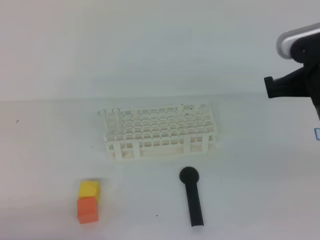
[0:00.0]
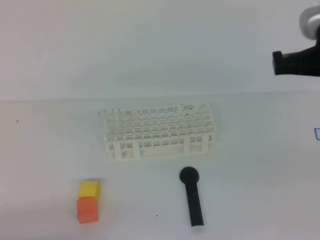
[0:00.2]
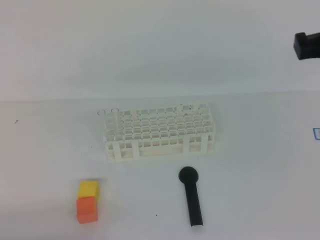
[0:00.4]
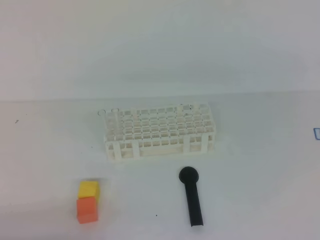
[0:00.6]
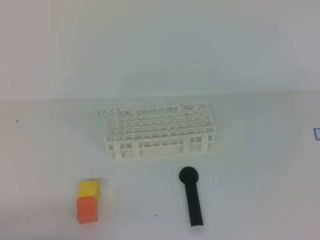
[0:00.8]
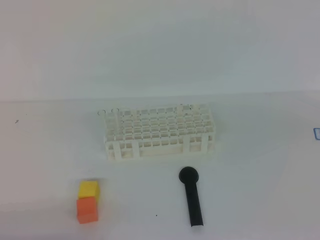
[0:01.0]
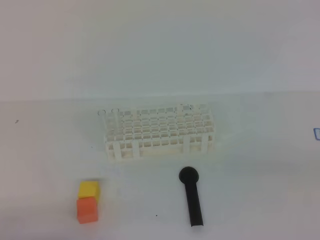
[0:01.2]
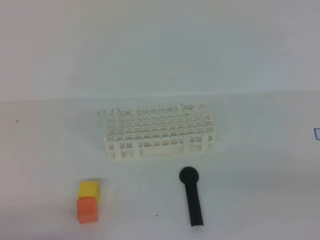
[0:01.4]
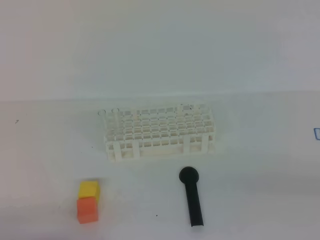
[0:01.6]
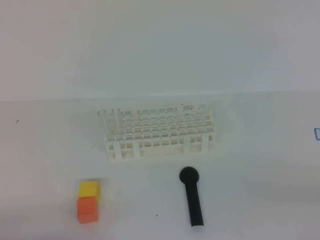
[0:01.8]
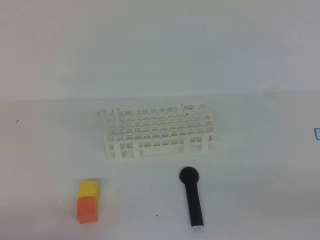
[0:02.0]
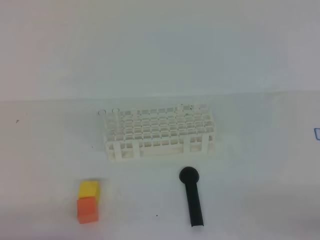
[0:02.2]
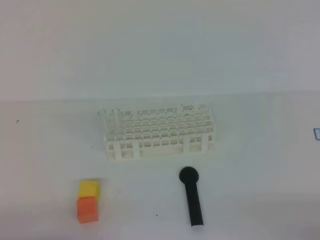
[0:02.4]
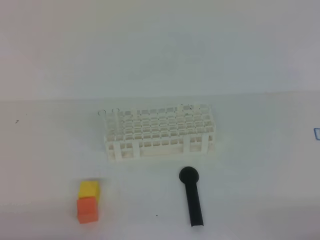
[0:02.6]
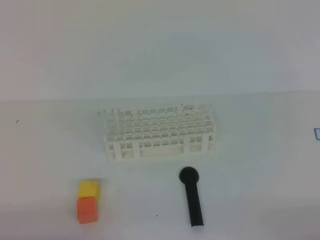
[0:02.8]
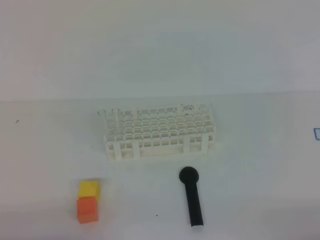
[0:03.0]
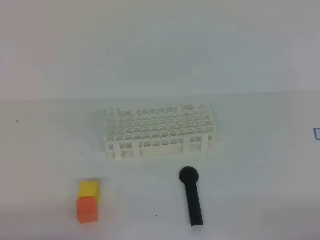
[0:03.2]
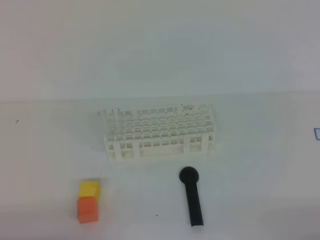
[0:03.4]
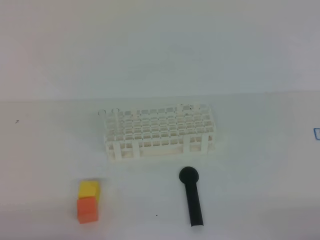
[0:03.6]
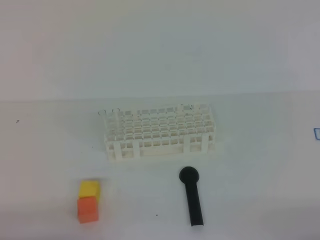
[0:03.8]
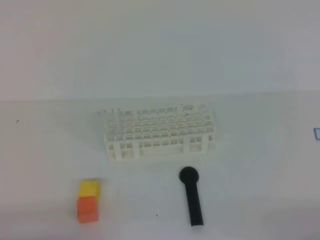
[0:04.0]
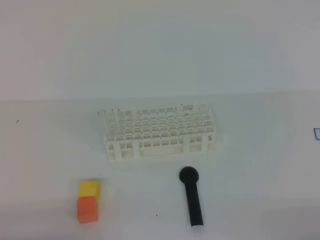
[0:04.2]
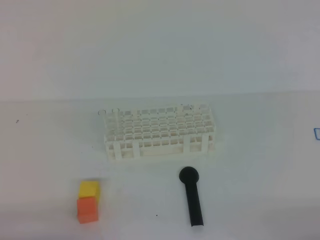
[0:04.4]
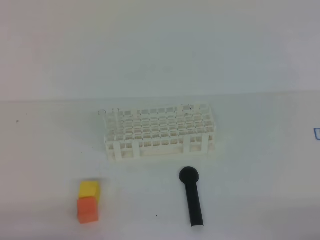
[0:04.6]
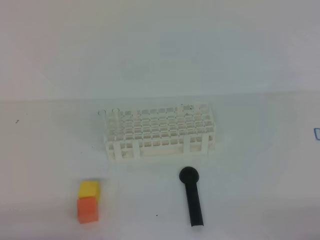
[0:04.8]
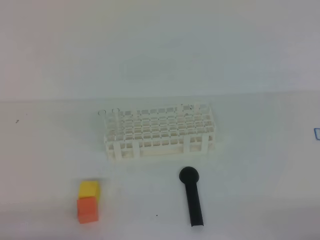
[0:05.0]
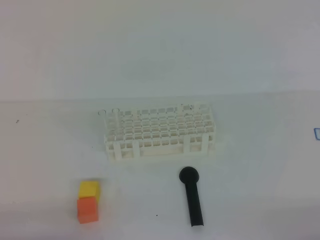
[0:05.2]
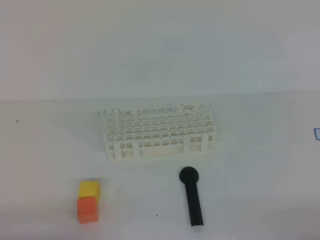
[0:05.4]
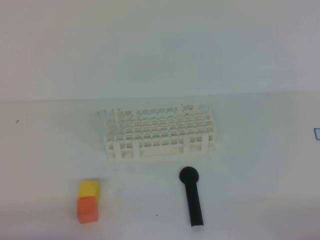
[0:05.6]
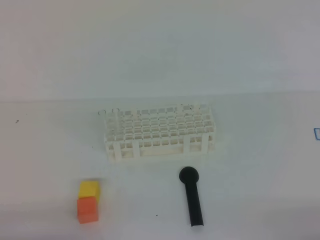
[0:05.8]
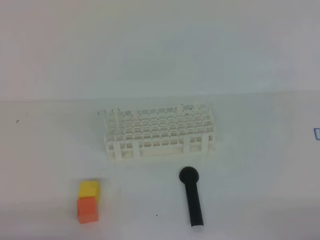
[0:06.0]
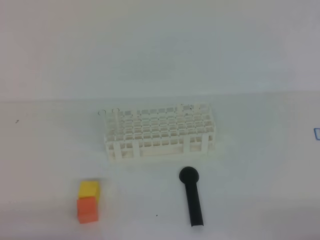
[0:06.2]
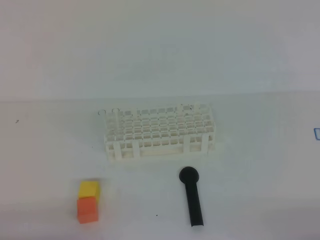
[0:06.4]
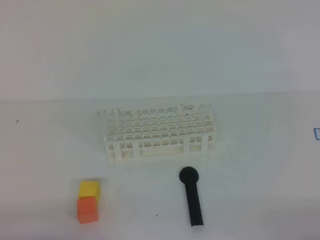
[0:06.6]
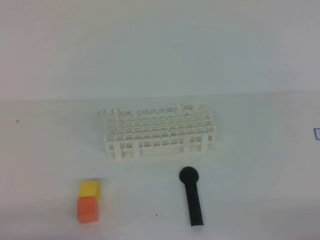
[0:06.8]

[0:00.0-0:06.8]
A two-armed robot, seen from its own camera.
0:00.0 to 0:01.4: The right gripper moves backward and to the right, roughly 20 cm.
0:02.8 to 0:04.0: Both grippers stay put.
0:04.0 to 0:06.8: Both grippers stay put.
